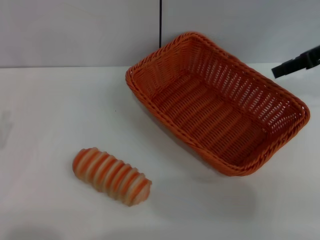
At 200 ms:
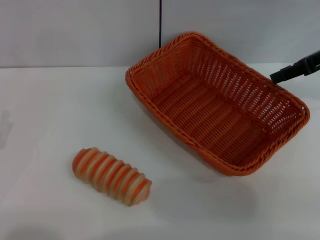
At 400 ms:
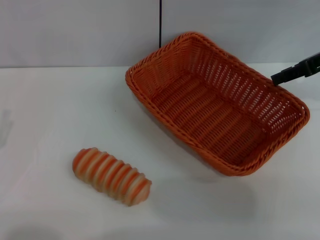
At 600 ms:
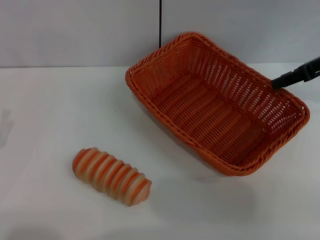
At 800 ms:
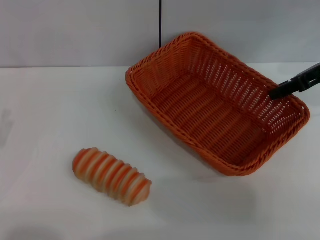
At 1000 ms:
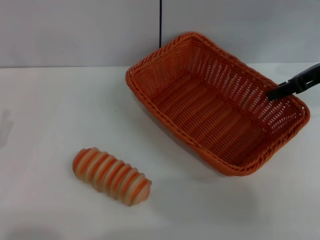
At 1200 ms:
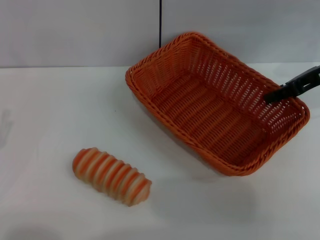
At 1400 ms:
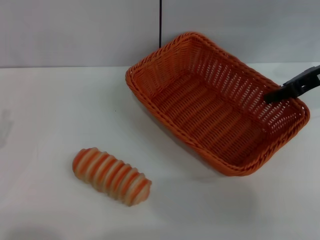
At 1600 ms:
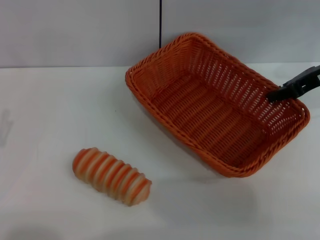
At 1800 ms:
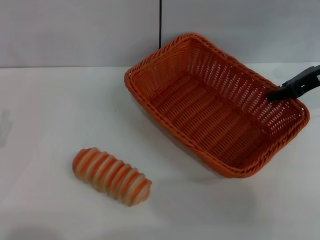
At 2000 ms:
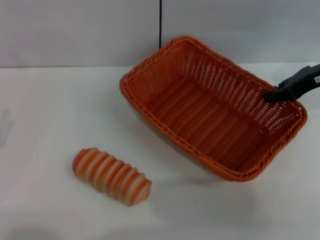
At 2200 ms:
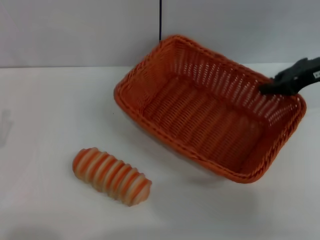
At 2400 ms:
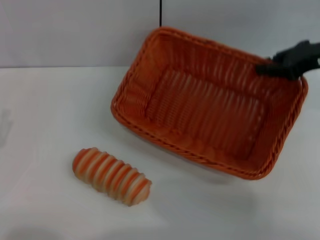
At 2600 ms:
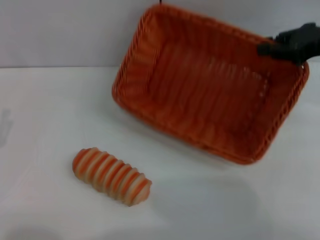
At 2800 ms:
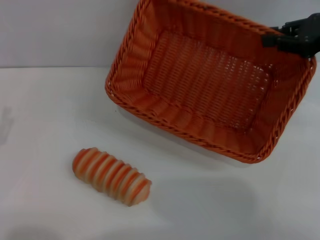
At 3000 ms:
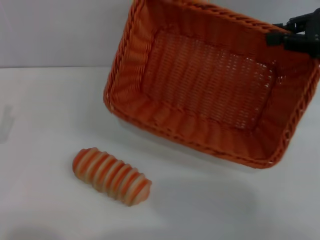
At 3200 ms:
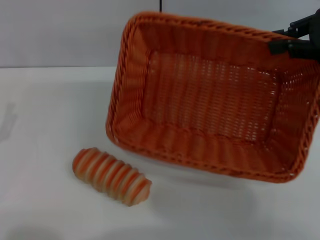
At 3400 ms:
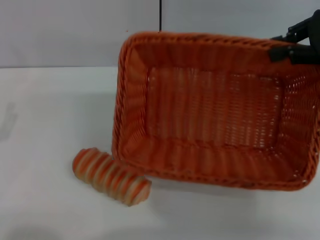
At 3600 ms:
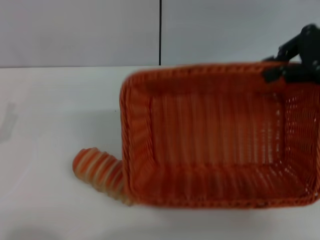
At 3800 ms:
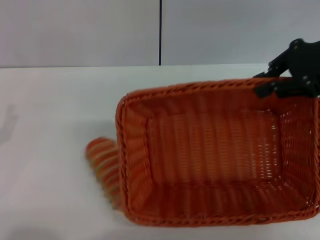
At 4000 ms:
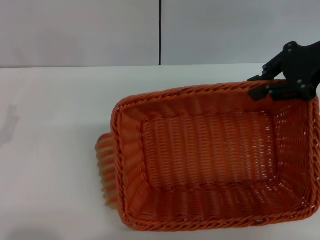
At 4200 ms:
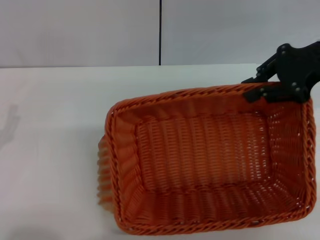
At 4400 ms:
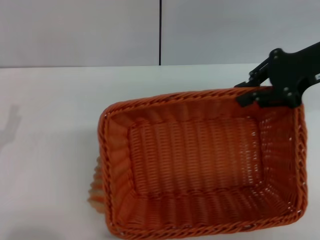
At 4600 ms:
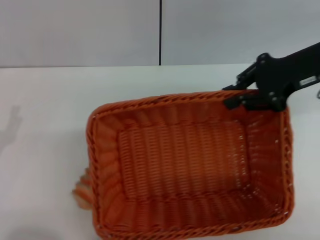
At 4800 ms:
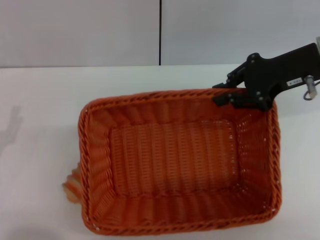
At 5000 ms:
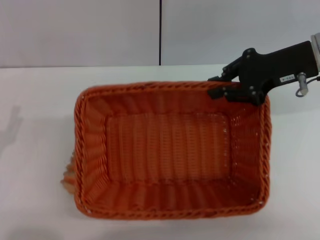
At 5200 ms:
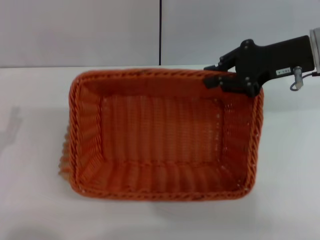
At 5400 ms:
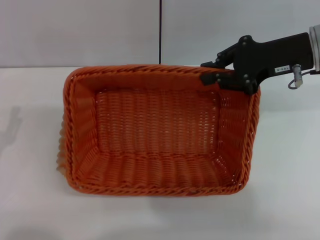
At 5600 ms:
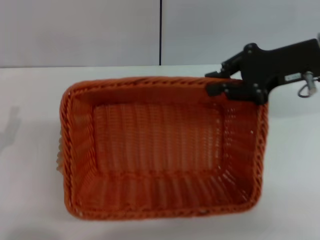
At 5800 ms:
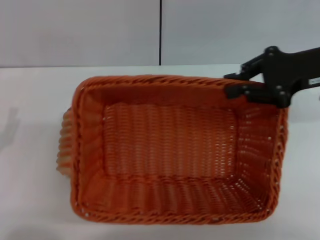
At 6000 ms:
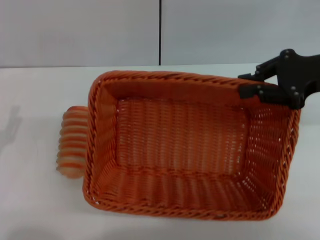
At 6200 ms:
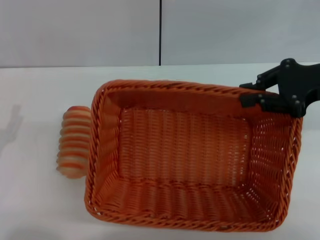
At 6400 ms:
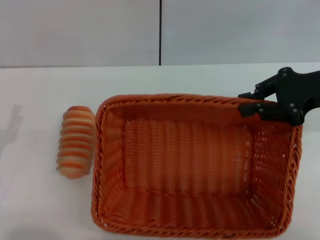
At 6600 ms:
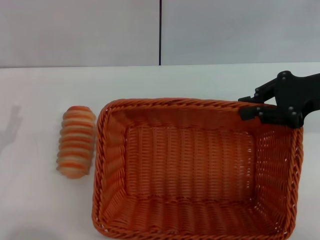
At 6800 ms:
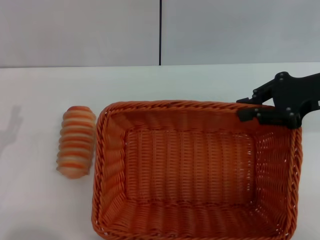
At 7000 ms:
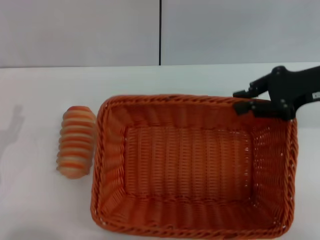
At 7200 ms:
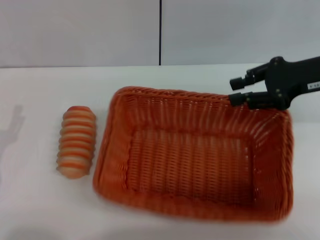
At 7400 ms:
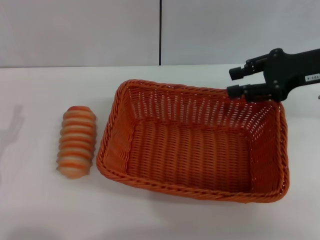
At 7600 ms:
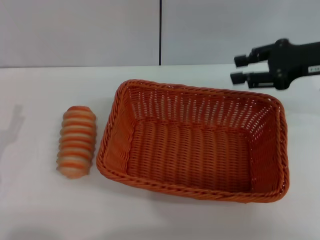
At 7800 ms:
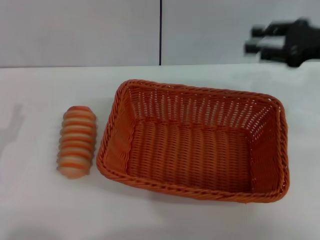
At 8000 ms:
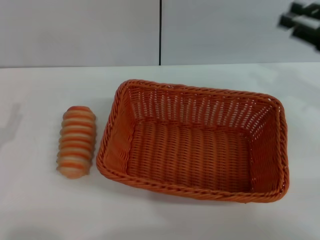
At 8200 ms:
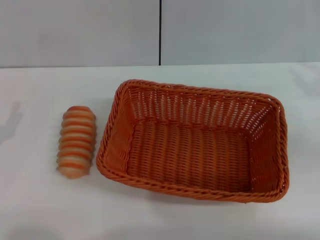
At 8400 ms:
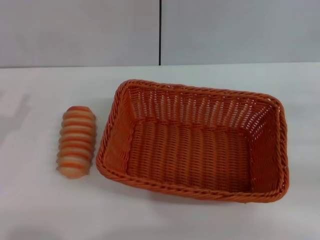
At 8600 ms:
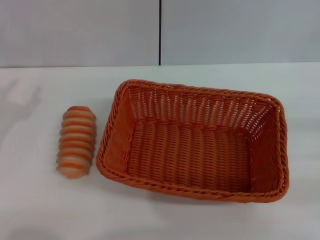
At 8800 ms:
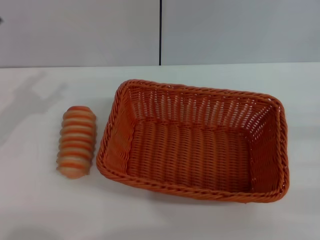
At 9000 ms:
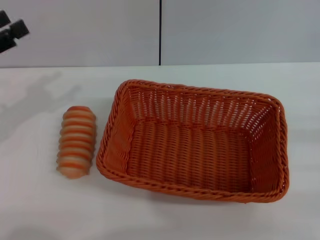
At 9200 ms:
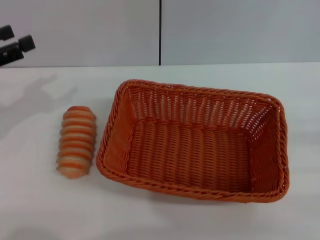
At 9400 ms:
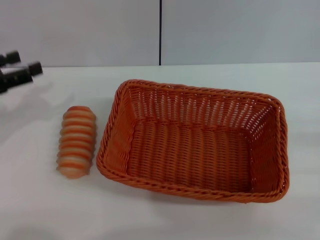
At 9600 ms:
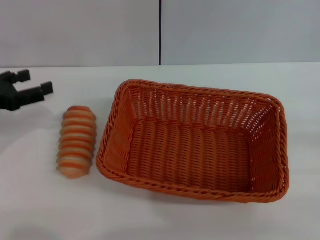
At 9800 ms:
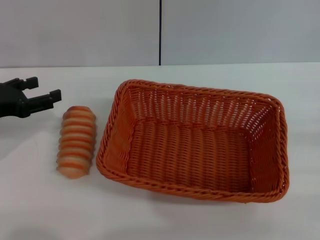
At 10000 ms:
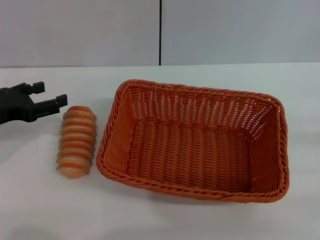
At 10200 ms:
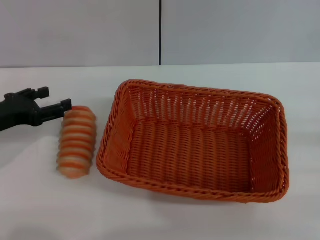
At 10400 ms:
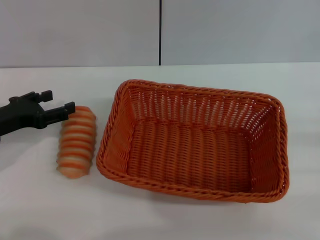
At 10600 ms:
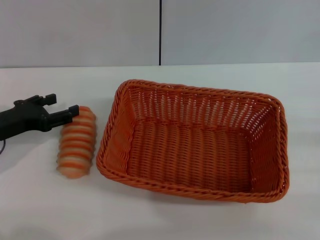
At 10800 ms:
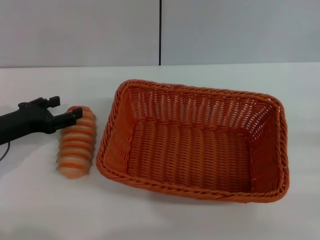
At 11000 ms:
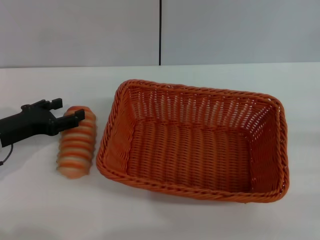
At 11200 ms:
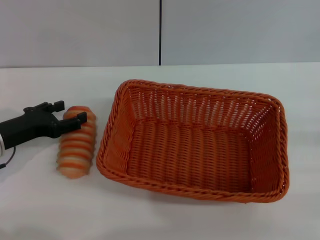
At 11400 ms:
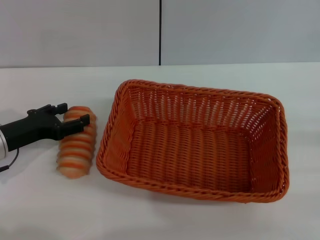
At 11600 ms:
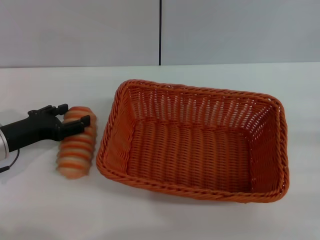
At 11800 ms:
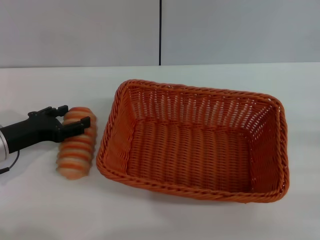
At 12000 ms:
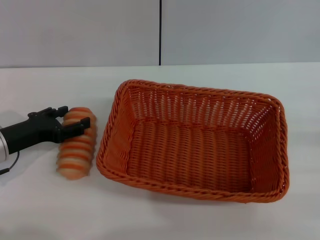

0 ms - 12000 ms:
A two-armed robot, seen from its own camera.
Step, 0 ms - 2800 ms: Pick up the light basket with the right gripper.
Step, 3000 ms - 7400 ms: Place the light basket in the center of view with the right gripper.
0 ms - 1600 ms: The right gripper closes.
1600 ms - 3000 ms: The right gripper ends up roughly 5 cm from where it was.
3000 ms - 4400 ms: The right gripper heads to the left, covering roughly 5 cm.
6000 ms - 7600 ms: The right gripper opens up.
7600 ms - 9000 ms: The left gripper is displaced upward and forward by approximately 15 cm, while the right gripper travels backward, to the right and downward by roughly 25 cm.
9000 ms - 10400 ms: The left gripper moves downward, roughly 10 cm.
10400 ms - 12000 ms: The grippers stay close to where they were, moving slightly.

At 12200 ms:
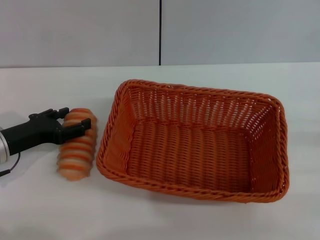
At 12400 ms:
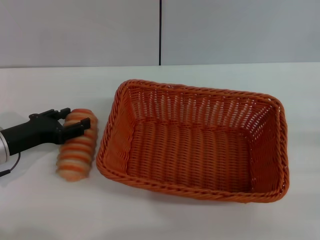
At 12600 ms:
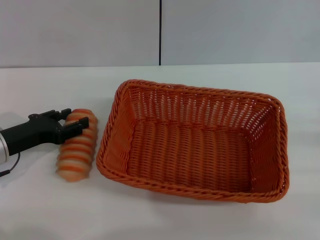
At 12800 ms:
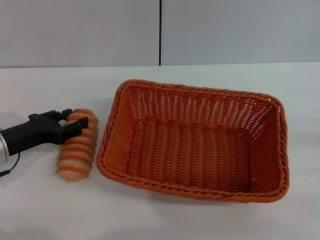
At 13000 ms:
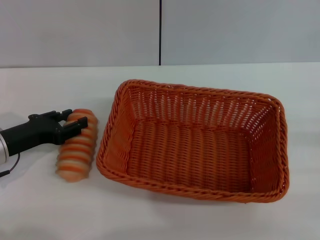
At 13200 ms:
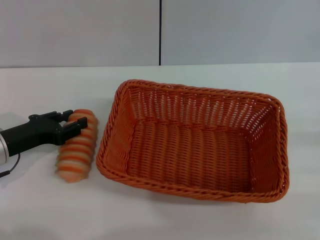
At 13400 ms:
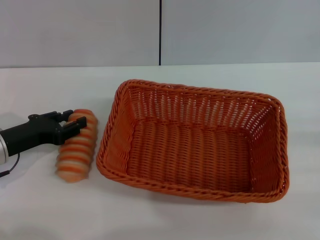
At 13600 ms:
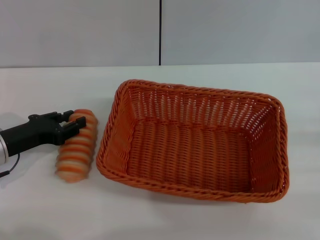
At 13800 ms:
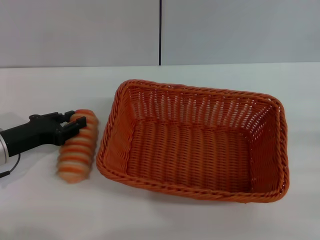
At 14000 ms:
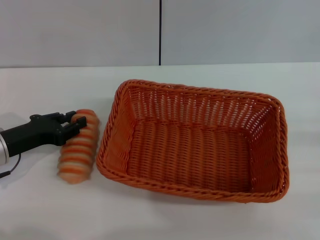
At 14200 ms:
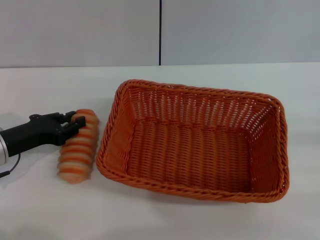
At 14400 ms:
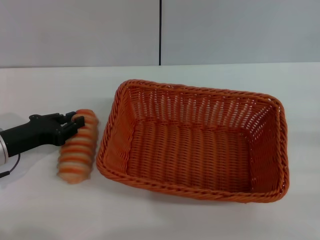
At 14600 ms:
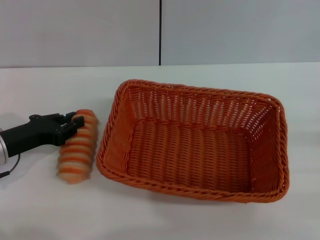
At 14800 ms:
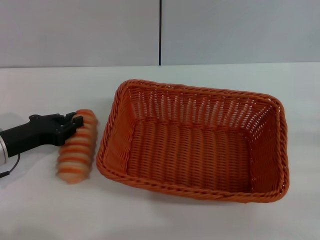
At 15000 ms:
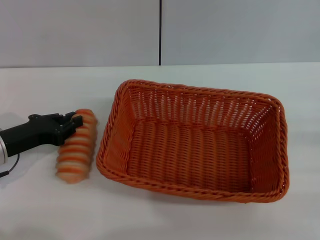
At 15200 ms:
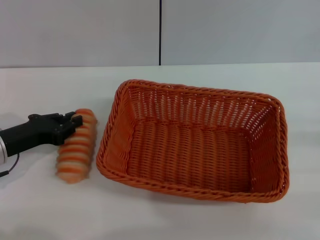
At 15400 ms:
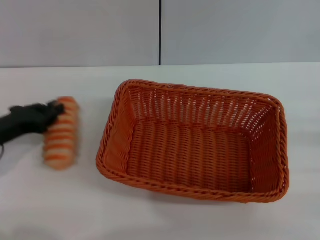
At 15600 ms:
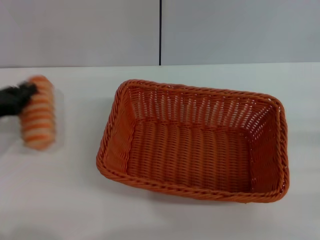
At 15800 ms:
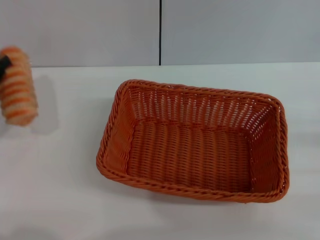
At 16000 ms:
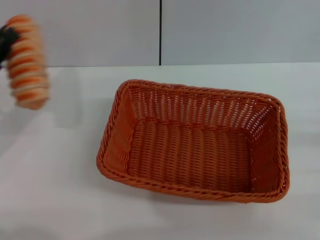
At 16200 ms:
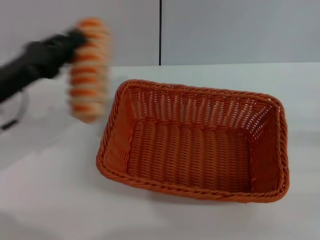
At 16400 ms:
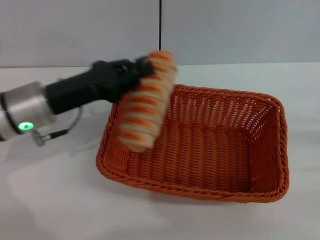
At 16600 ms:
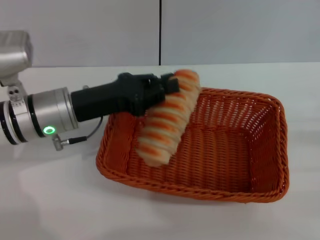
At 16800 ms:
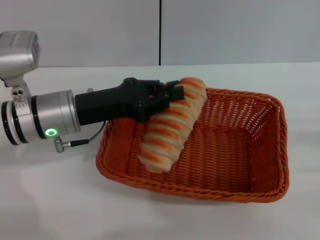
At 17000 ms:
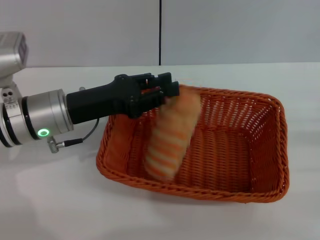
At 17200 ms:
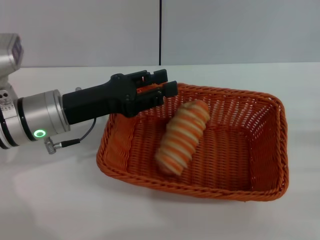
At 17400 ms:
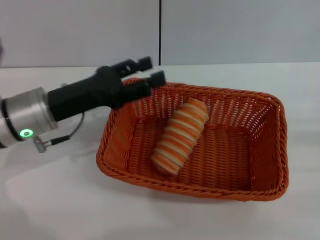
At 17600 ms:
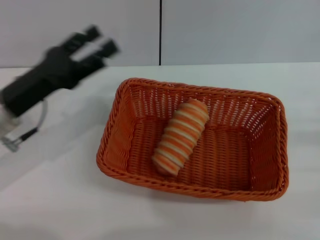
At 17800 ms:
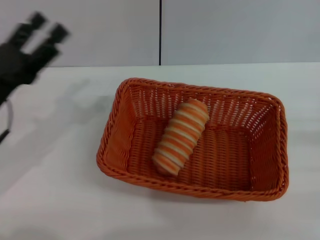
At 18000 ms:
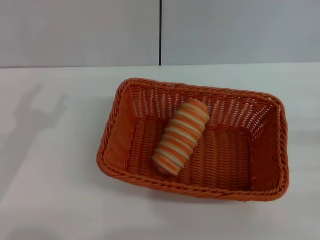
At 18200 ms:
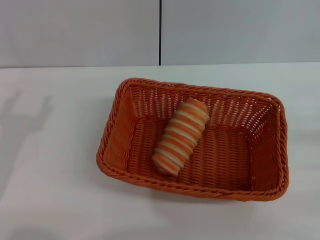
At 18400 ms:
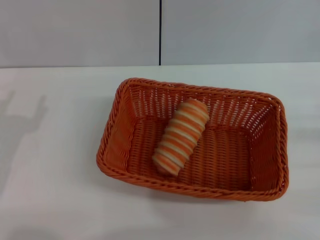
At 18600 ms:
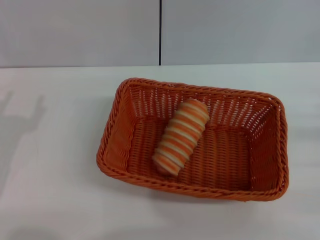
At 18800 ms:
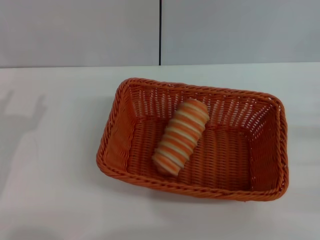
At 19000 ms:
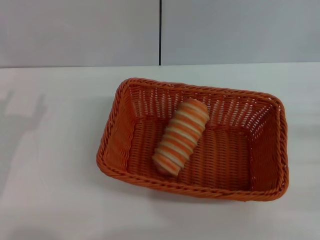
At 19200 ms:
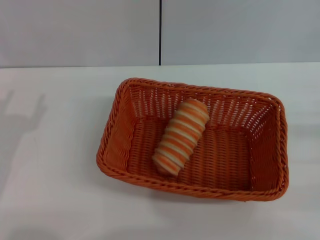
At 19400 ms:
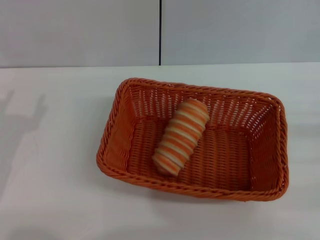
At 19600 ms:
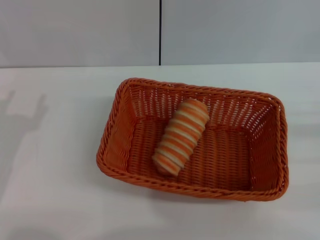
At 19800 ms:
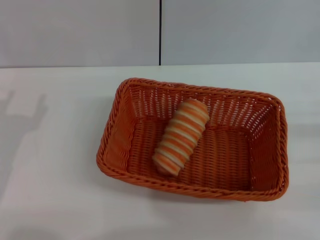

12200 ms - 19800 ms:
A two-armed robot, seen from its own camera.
Step, 12200 ms - 15600 ms: Pick up the long bread with the left gripper.
Step, 15800 ms - 17400 ms: Place the long bread into the light basket with the left gripper.
12200 ms - 13800 ms: The left gripper closes its fingers.
13800 ms - 15200 ms: Both grippers stay about where they are.
15200 ms - 16800 ms: The left gripper travels to the right and upward by roughly 15 cm.
16800 ms - 18200 ms: The left gripper heads to the left and backward, covering some 15 cm, and opens its fingers.
18200 ms - 19800 ms: The two grippers keep their place.
